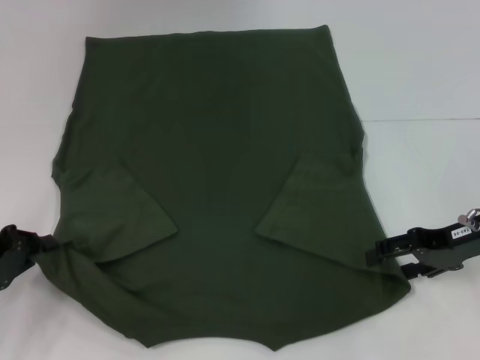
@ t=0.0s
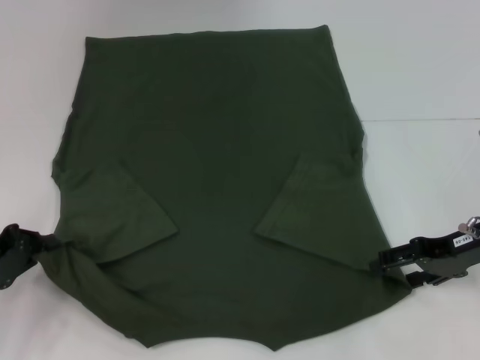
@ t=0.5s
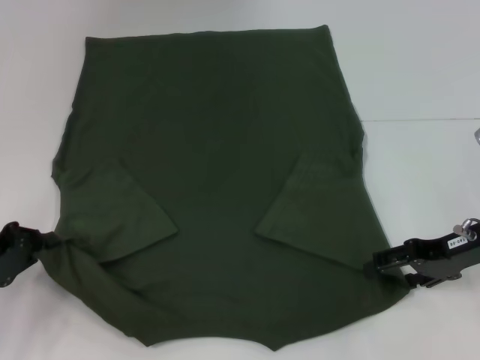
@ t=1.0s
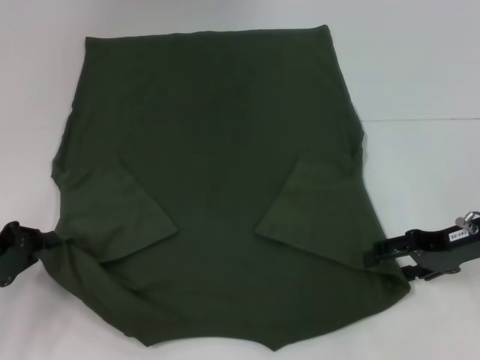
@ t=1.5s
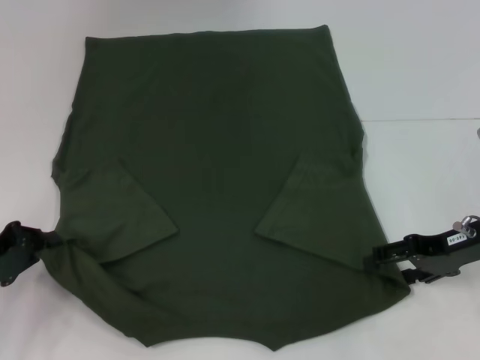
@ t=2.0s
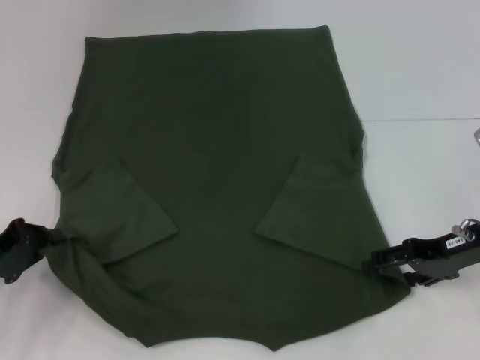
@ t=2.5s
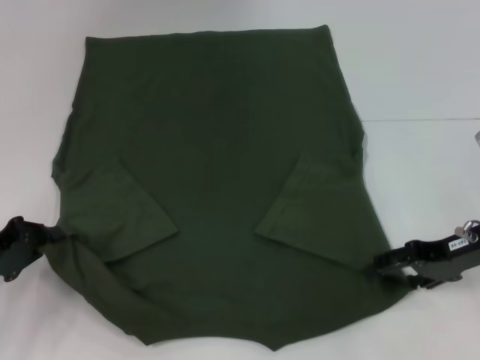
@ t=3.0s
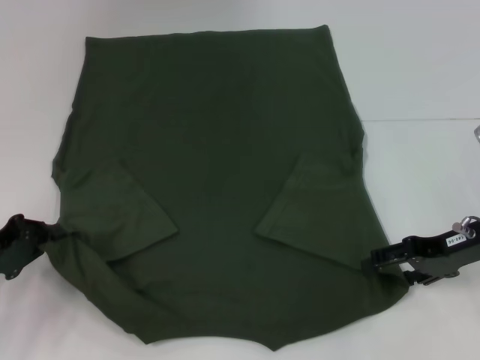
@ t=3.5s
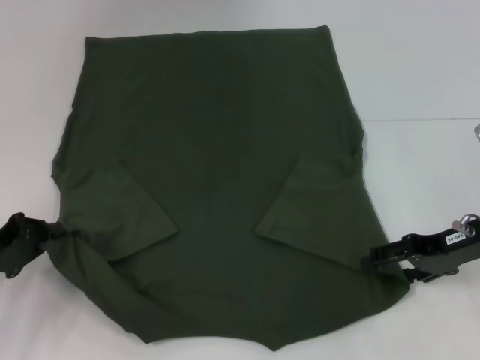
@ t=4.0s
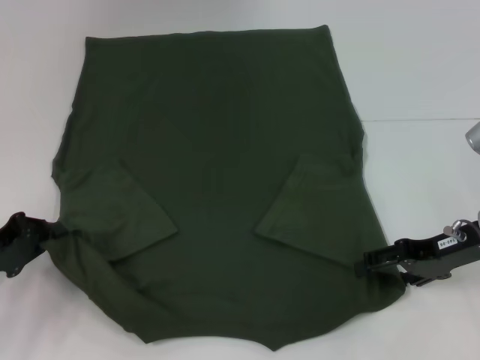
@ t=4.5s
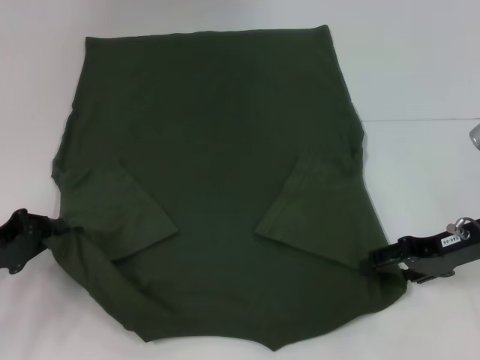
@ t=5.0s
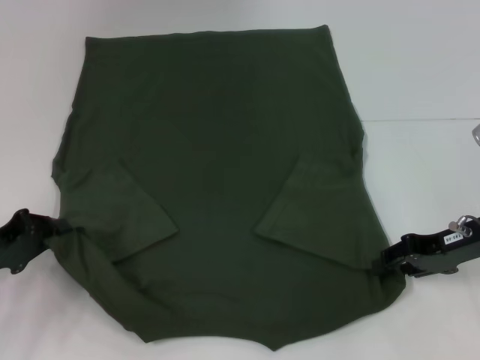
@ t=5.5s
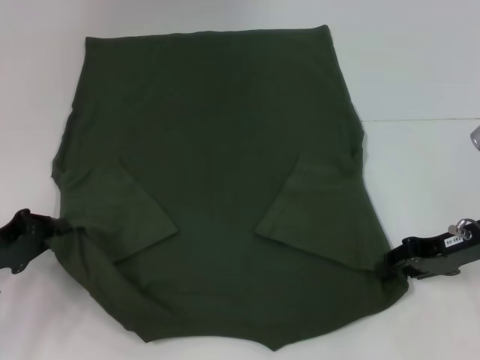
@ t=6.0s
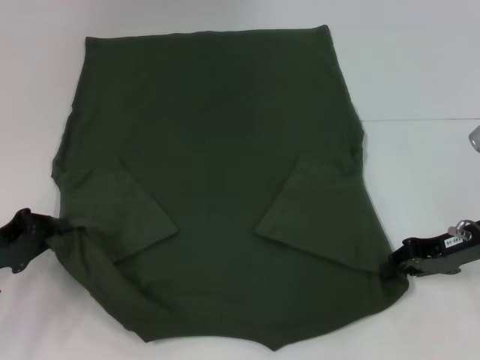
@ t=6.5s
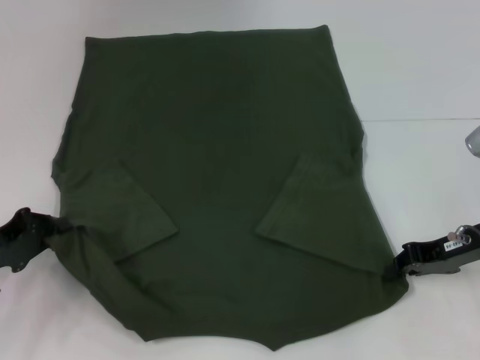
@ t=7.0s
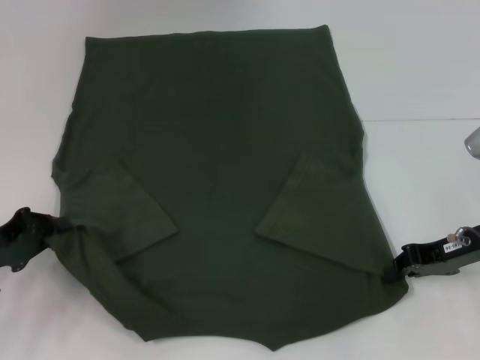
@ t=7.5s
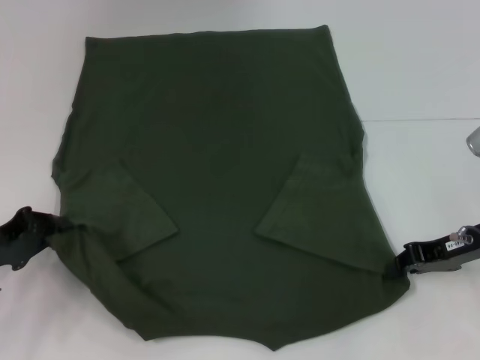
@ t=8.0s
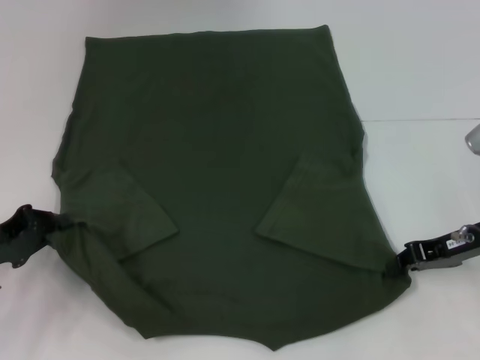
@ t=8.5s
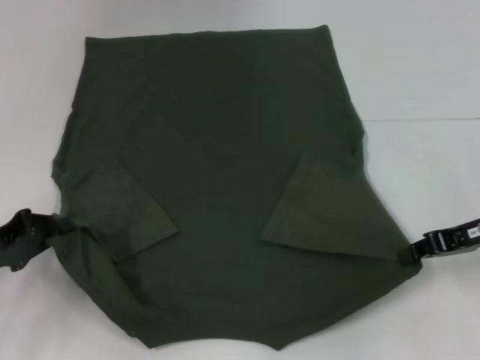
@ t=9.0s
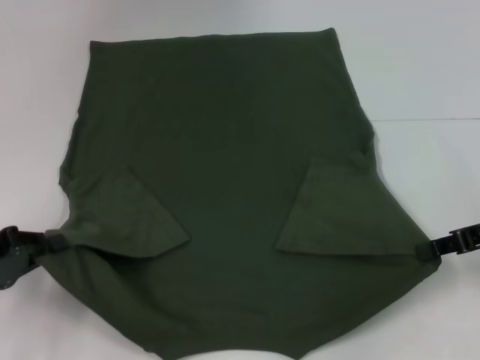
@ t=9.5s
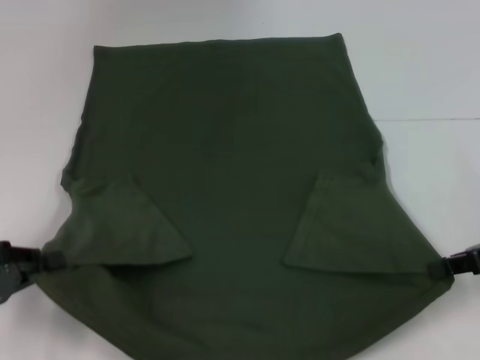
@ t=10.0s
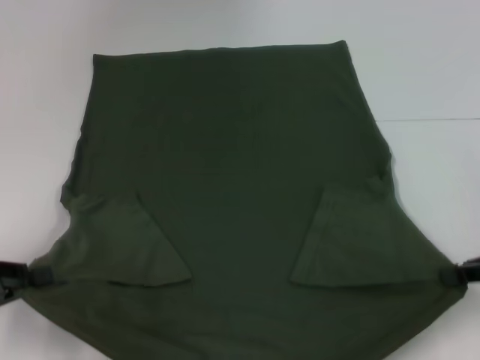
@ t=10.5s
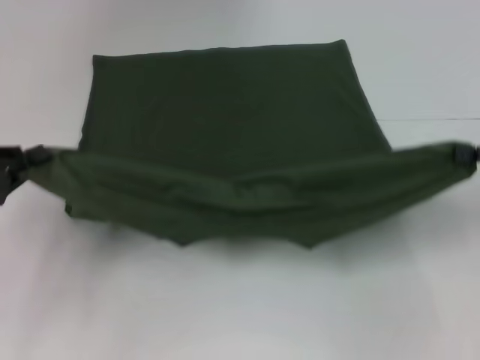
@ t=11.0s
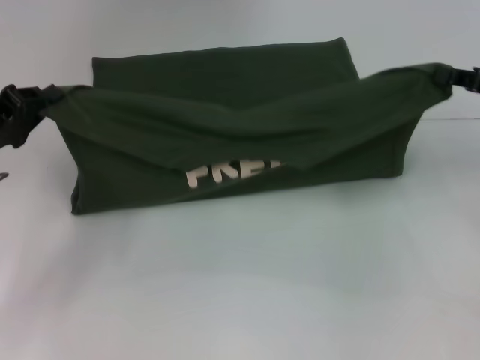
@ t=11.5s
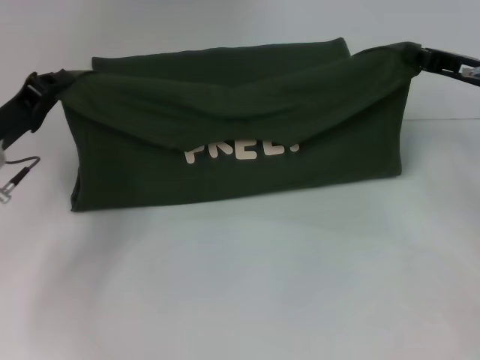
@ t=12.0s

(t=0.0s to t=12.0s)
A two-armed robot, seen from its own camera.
Step, t=0.0s - t=7.0s: Grab the bottom right corner with your right hand.
t=0.0s - t=4.0s: Neither gripper changes place.
t=4.0s - t=6.0s: The right gripper closes its fingers.
t=6.0s - t=8.0s: The right gripper closes.
t=8.0s - t=10.0s: The right gripper is displaced to the right by roughly 5 cm. Meanwhile the left gripper changes place by approximately 5 cm.
t=10.0s - t=12.0s: The right gripper is displaced forward by roughly 10 cm, while the left gripper shifts about 15 cm forward and to the right.

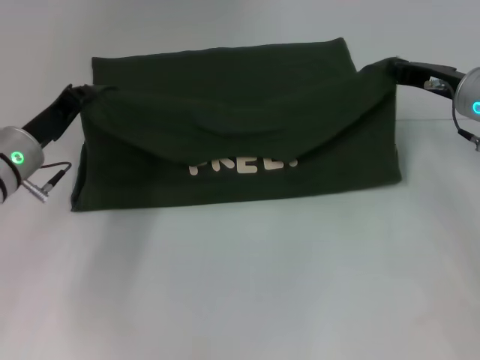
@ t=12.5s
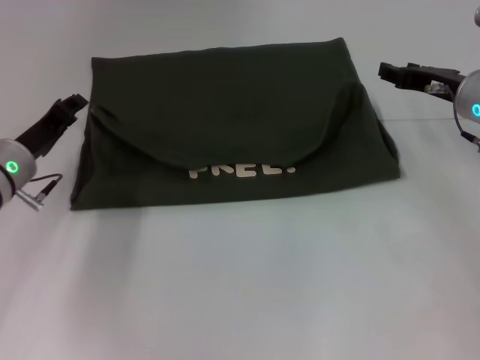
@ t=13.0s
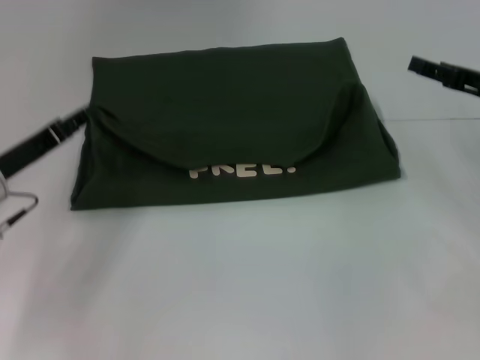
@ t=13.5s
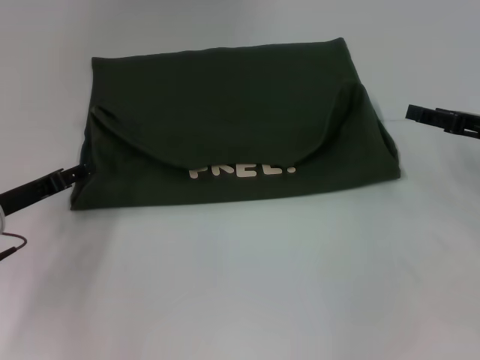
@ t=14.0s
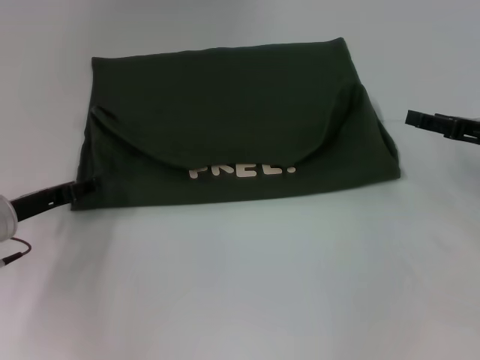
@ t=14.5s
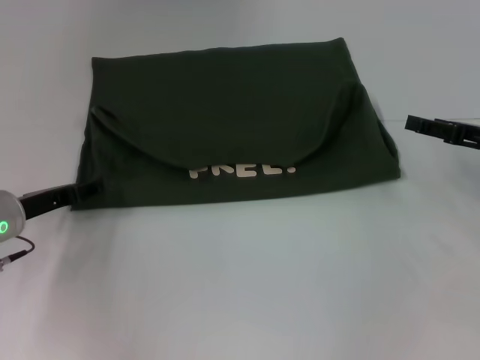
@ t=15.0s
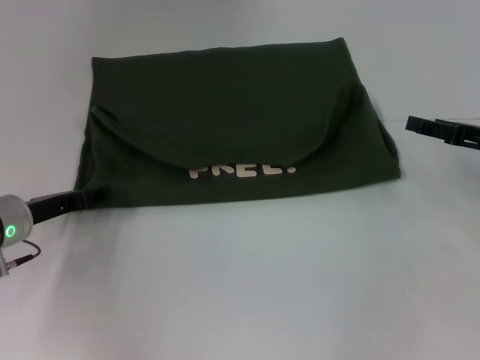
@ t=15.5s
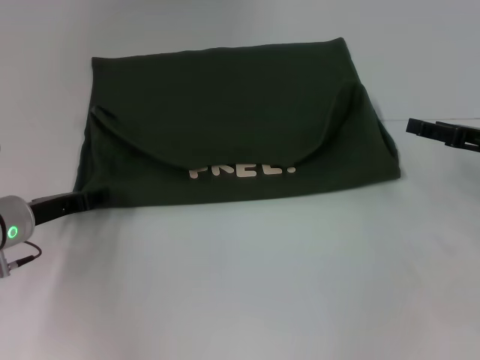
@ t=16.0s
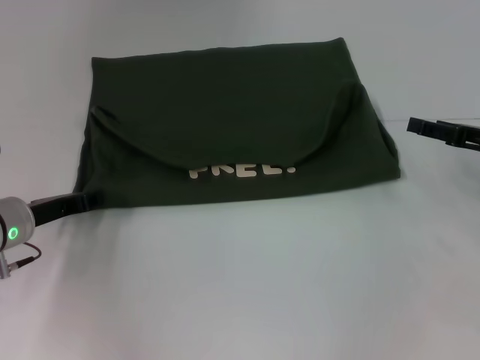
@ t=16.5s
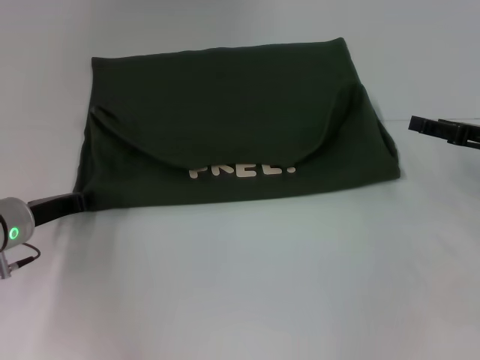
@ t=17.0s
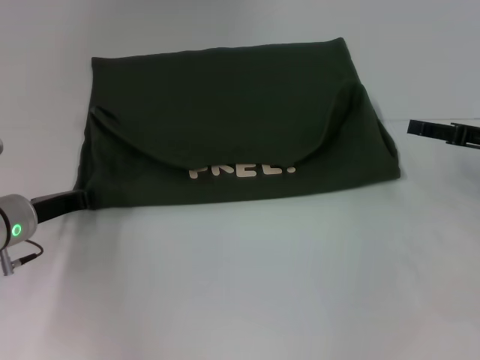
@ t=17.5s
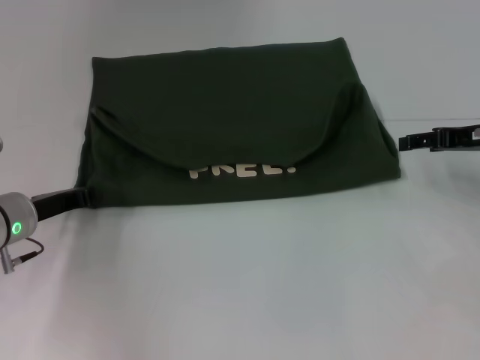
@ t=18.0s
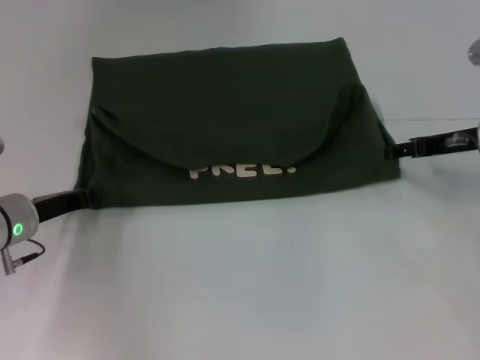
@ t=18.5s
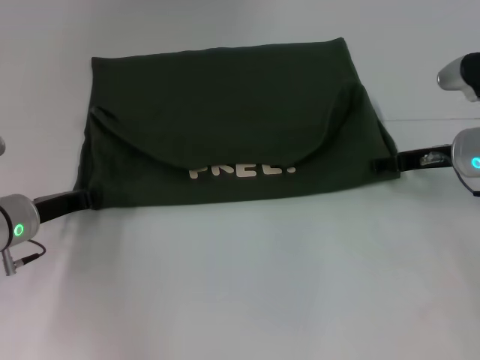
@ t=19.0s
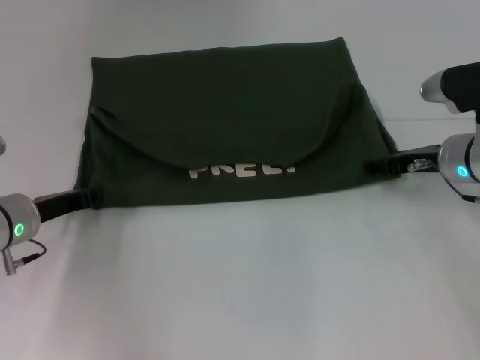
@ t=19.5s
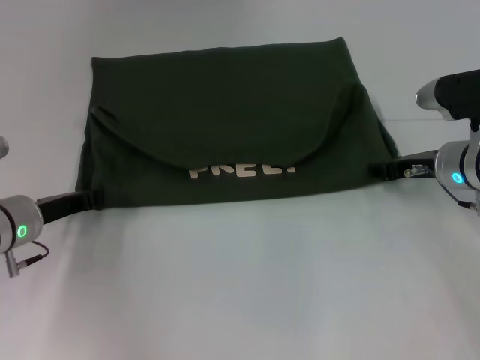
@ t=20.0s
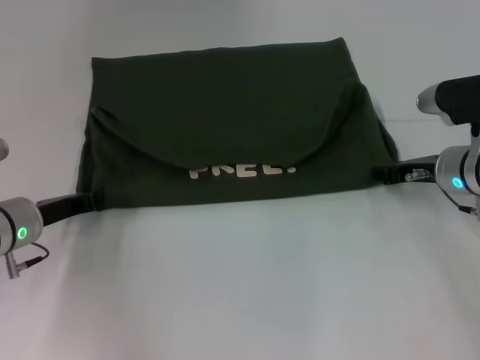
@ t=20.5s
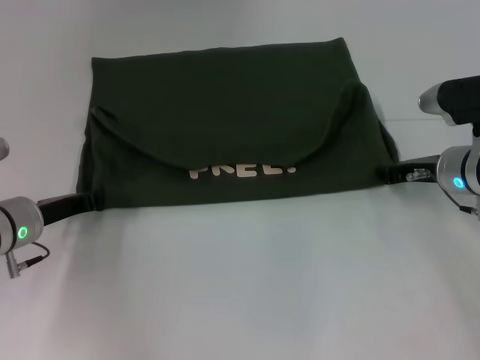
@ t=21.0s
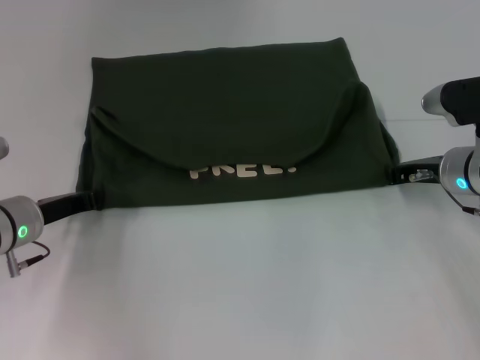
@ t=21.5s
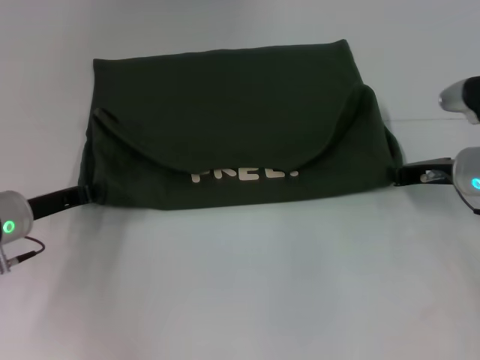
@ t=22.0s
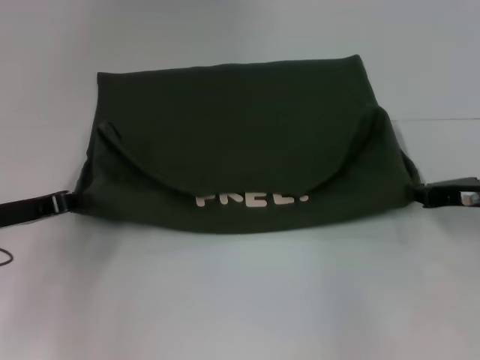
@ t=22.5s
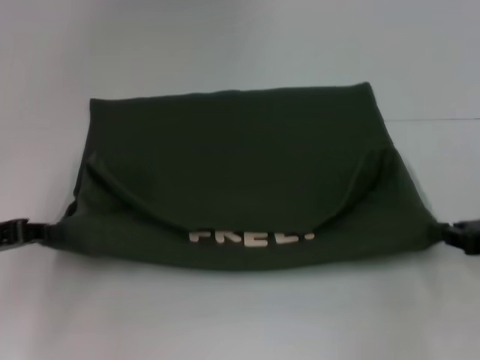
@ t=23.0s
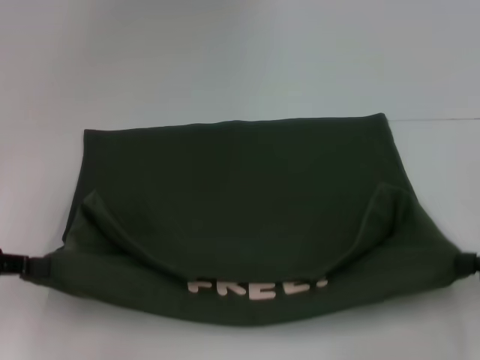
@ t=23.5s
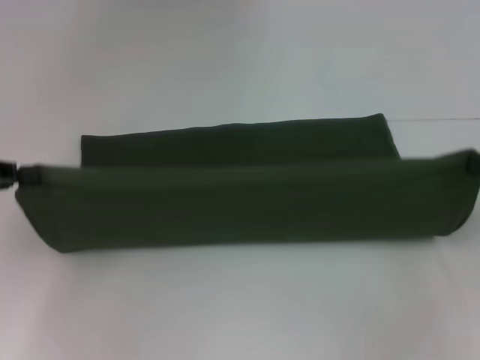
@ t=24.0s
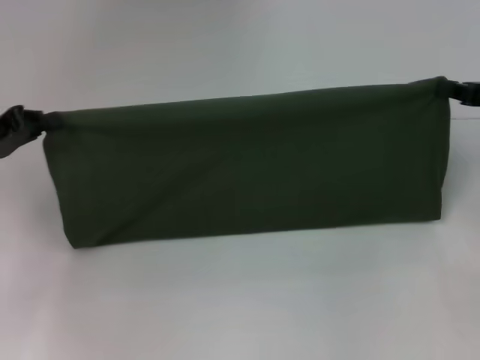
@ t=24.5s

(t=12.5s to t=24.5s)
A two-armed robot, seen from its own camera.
Step, t=13.5s - t=23.0s: Pull the clothes with your left hand.
Step, t=13.5s - t=23.0s: Pull the clothes with your right hand.
t=12.5s - t=14.5s: The right gripper shifts some 10 cm to the right and backward, and opens its fingers, while the left gripper shifts by approximately 5 cm, and opens.
t=14.5s - t=16.5s: There are only small adjustments of the grippers.
t=16.5s - t=18.5s: The left gripper closes its fingers, while the right gripper ends up some 5 cm from where it was.
t=18.5s - t=20.5s: The right gripper heads downward, covering approximately 5 cm.
t=20.5s - t=22.5s: The right gripper travels backward and to the right by roughly 5 cm, and closes up, while the left gripper ends up some 5 cm from where it was.
t=22.5s - t=24.5s: The two grippers go some 5 cm upward. The right gripper goes backward and returns, roughly 10 cm each way.

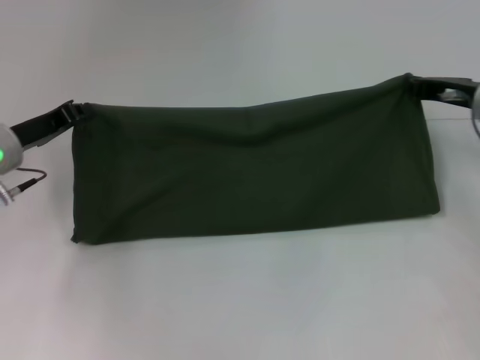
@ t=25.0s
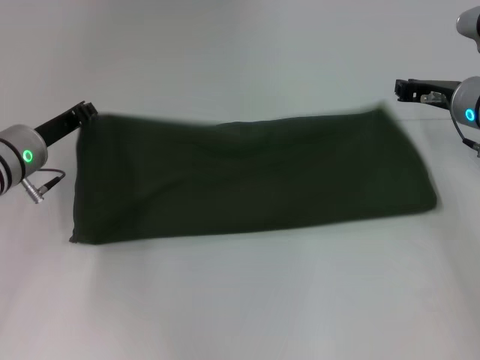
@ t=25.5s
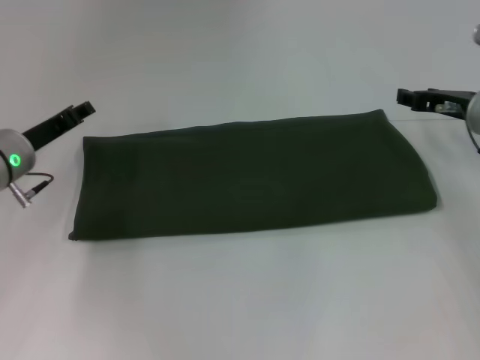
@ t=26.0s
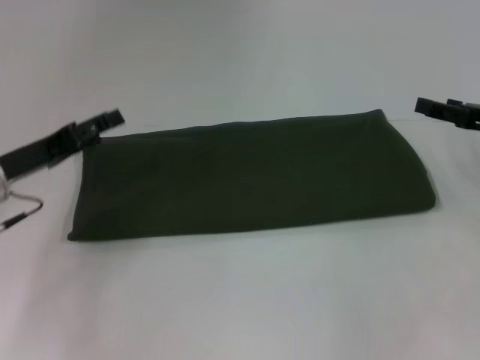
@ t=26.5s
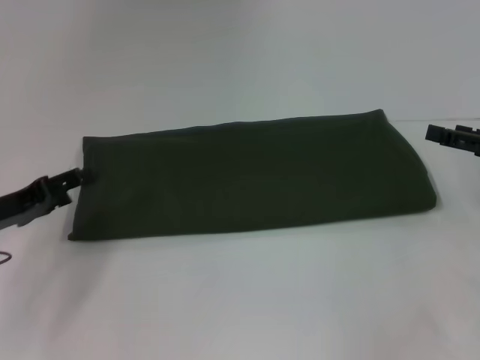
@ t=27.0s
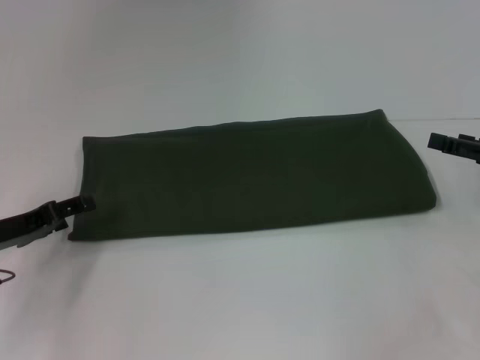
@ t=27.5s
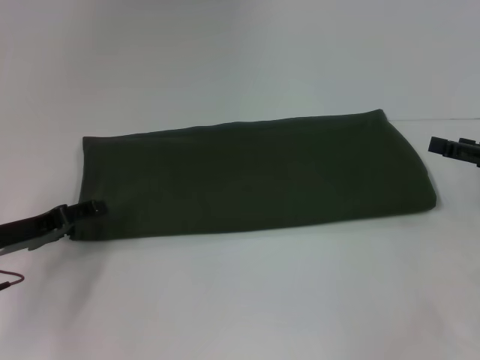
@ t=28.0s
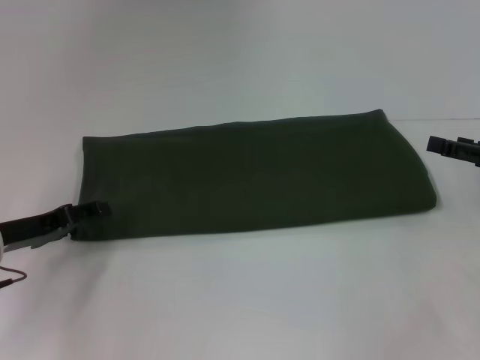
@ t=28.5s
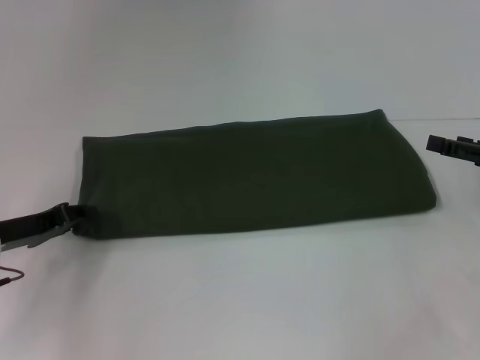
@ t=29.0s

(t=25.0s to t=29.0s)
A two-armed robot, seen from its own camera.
t=25.0s - t=27.0s: The left gripper is displaced backward by approximately 10 cm, and opens. The right gripper travels backward and to the right by roughly 10 cm, and opens its fingers.
t=27.0s - t=29.0s: The left gripper closes its fingers.
